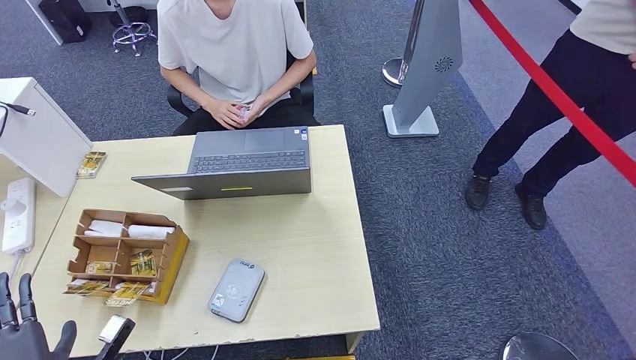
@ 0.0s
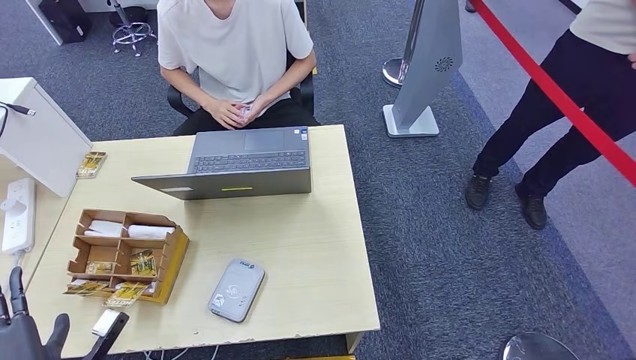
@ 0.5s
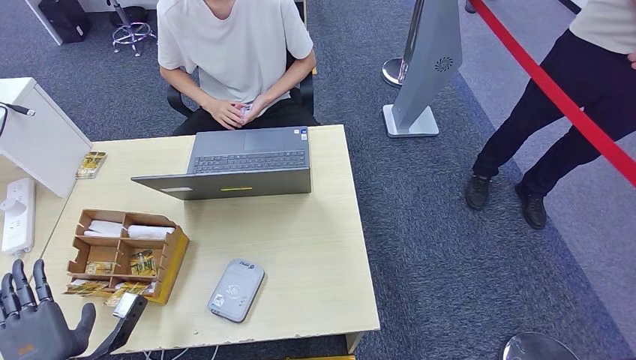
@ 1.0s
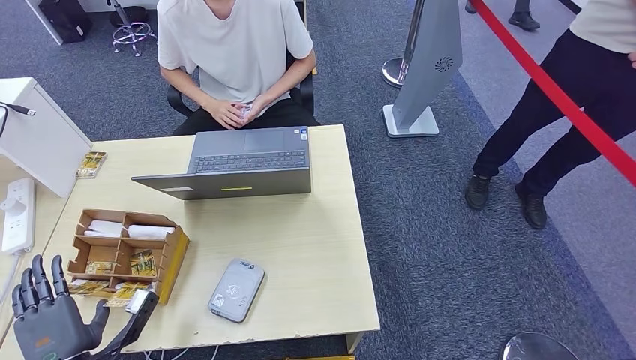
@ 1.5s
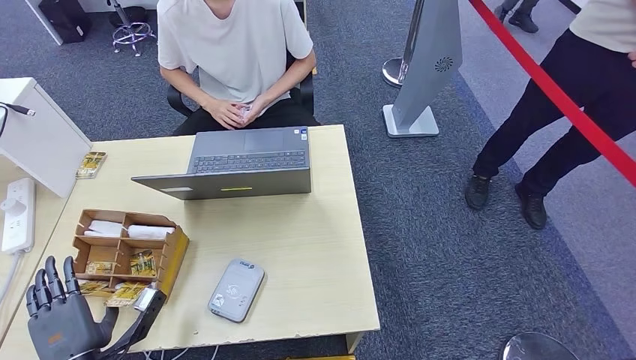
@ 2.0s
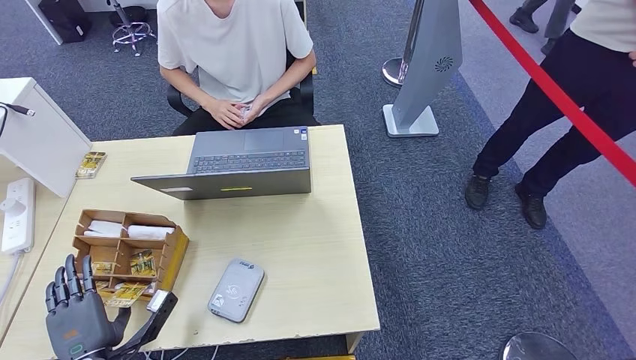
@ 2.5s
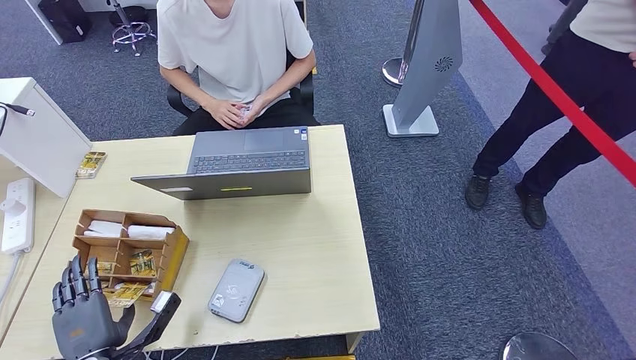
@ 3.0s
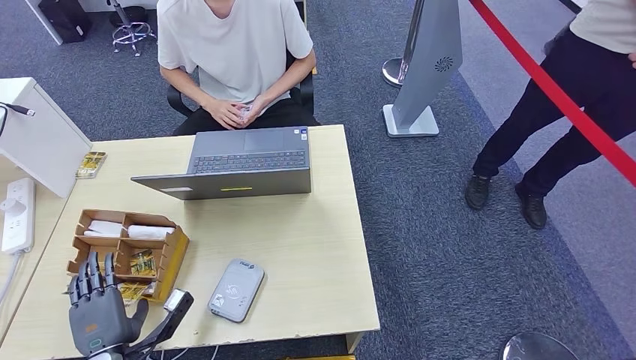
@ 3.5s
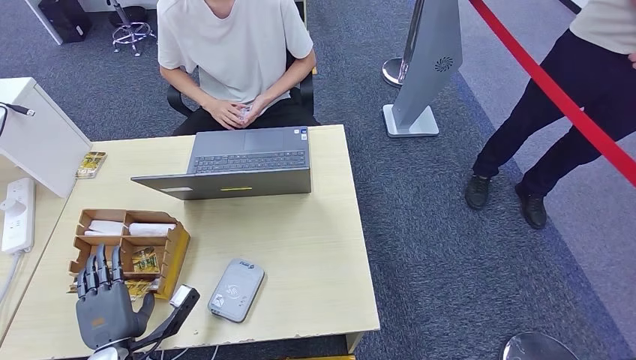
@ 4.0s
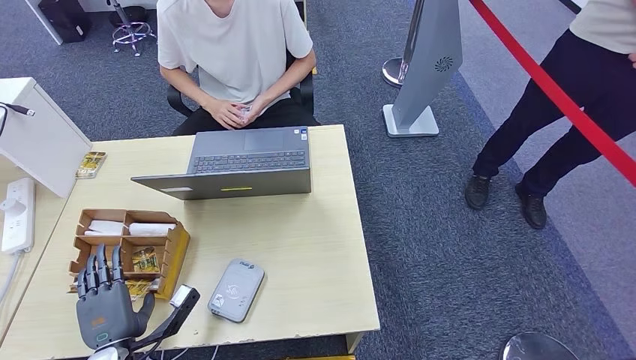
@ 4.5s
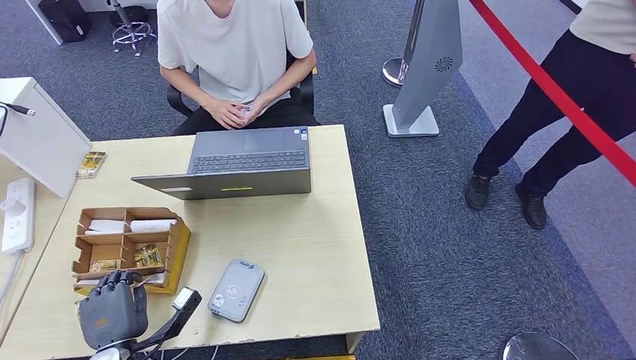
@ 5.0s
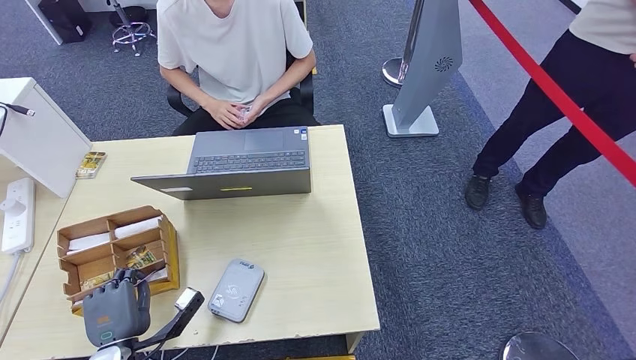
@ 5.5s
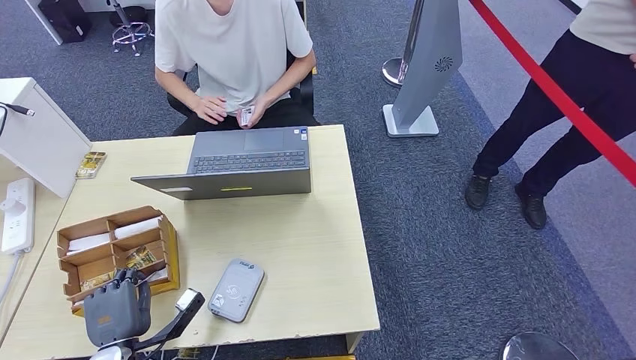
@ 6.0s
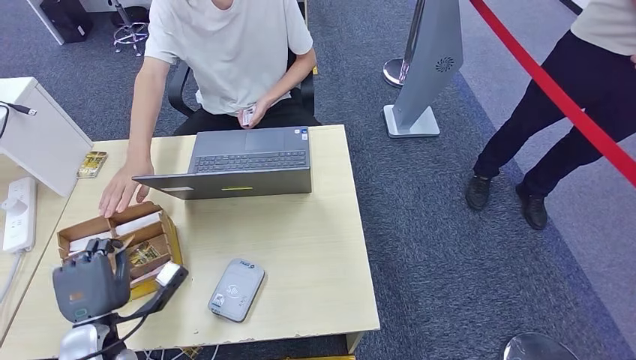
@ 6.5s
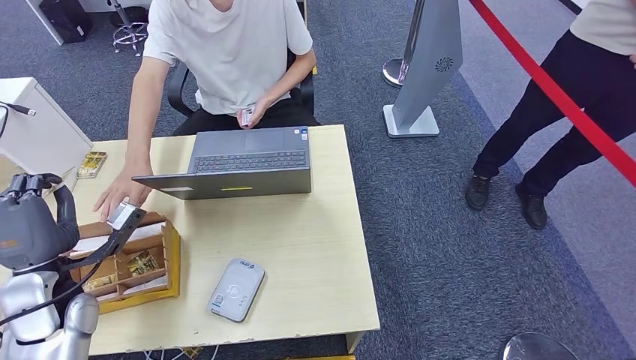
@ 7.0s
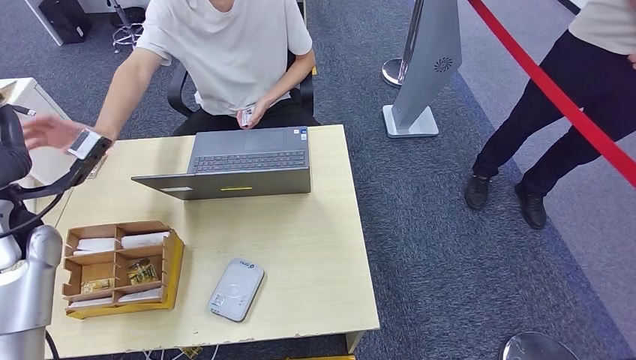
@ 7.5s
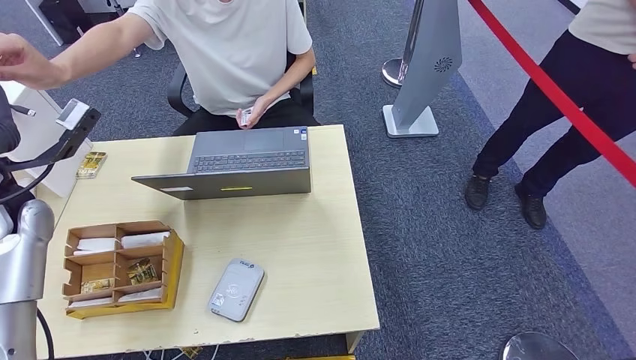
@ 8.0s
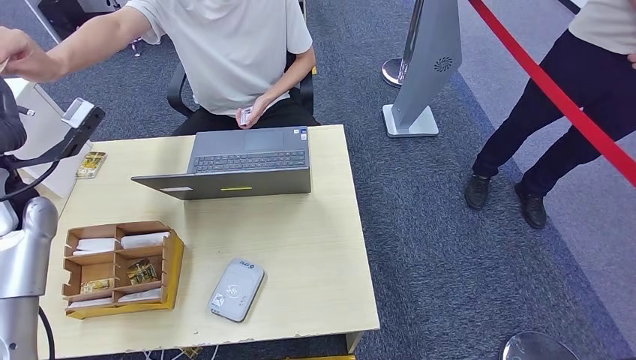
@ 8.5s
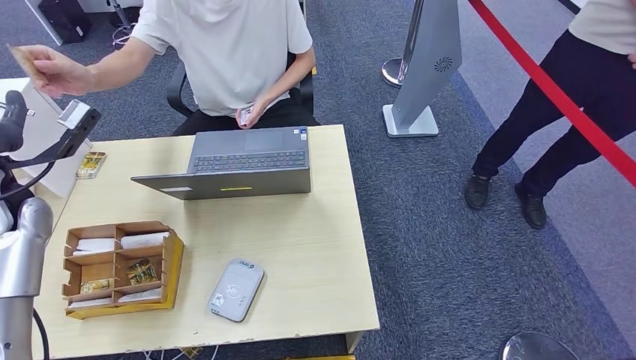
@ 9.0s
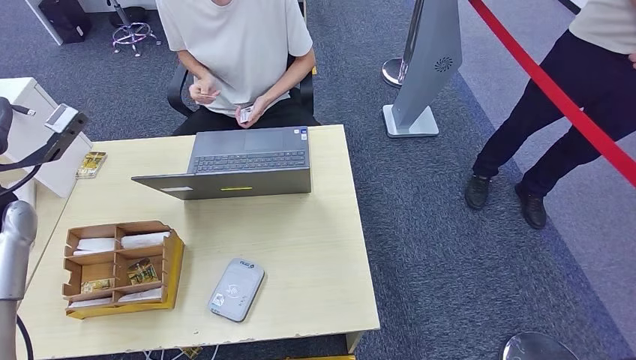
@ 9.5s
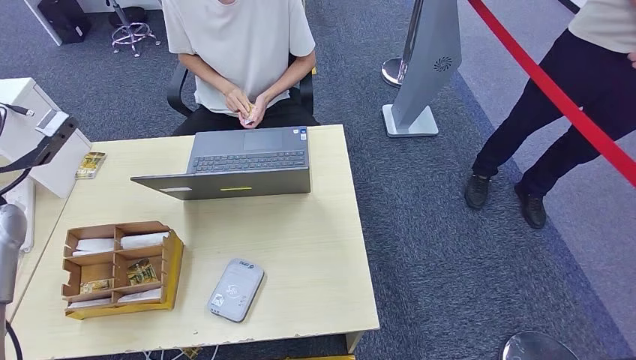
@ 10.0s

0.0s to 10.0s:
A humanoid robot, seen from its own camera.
Step, 0.0s to 4.5s: Pick up the room key from the key card box.
0.0s to 2.0s: The left hand moves about 5 cm.
2.0s to 4.0s: There are only small adjustments of the hands.
4.0s to 6.0s: Neither hand changes place.
6.0s to 8.0s: The left hand heads upward and forward, covering some 35 cm.
8.0s to 10.0s: The left hand heads to the left, covering roughly 5 cm.

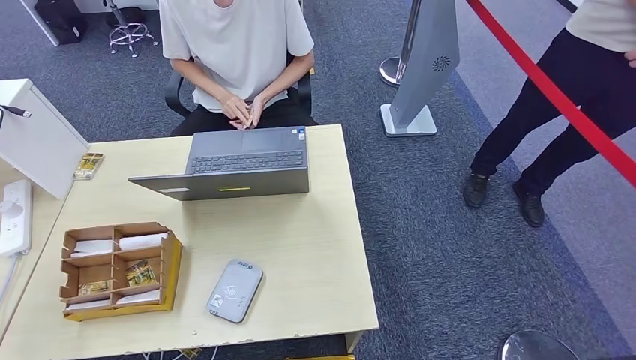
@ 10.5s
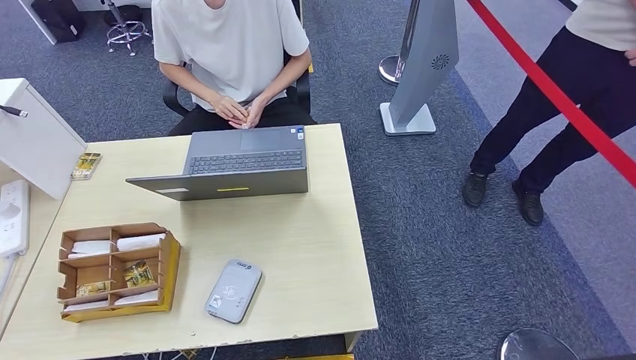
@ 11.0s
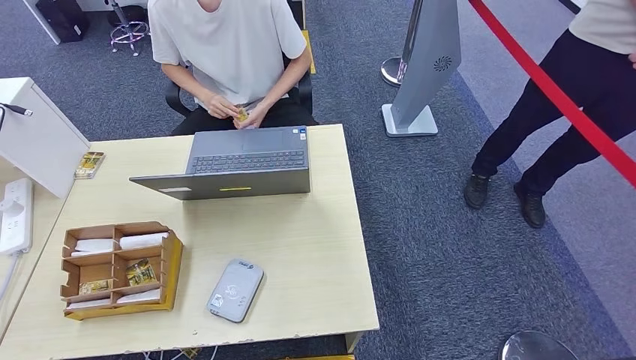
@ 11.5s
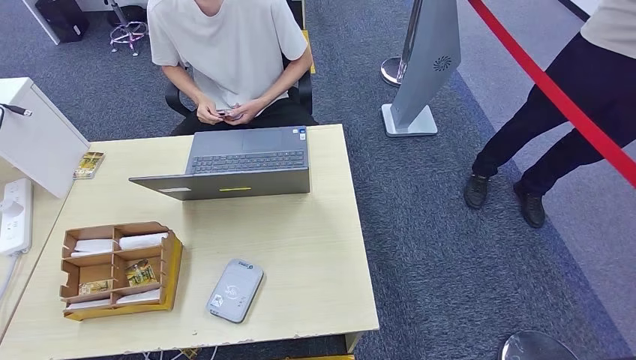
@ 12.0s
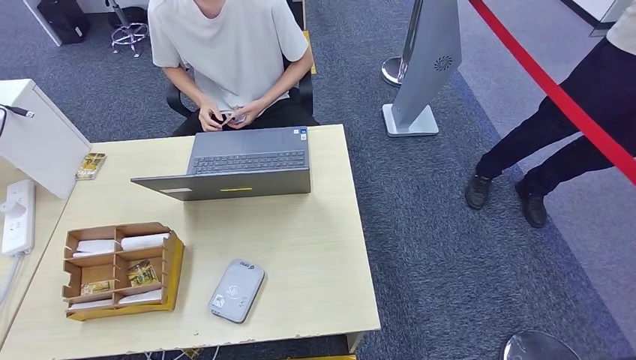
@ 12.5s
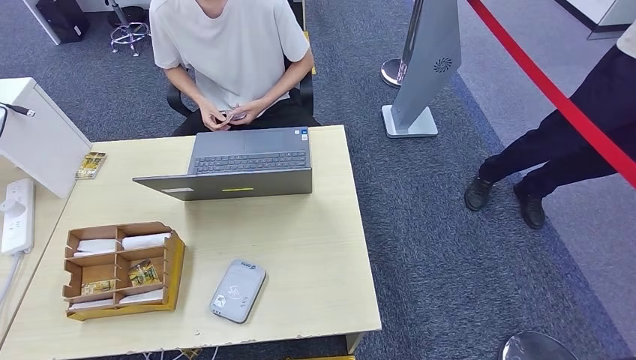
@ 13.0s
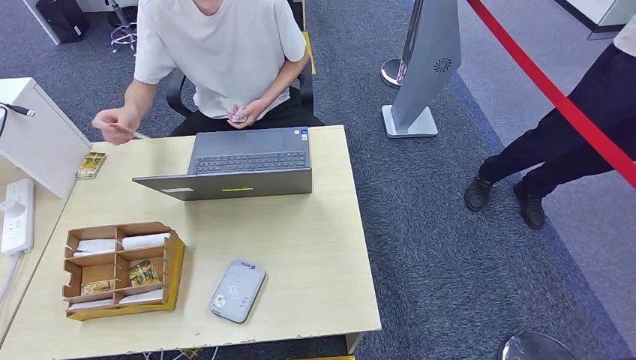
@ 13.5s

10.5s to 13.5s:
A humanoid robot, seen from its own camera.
Step, 10.5s to 13.5s: Hand the room key to the person.
10.5s to 12.0s: The left hand heads backward and to the left, covering roughly 35 cm.
12.0s to 13.5s: The left hand heads downward and to the right, covering about 35 cm.
